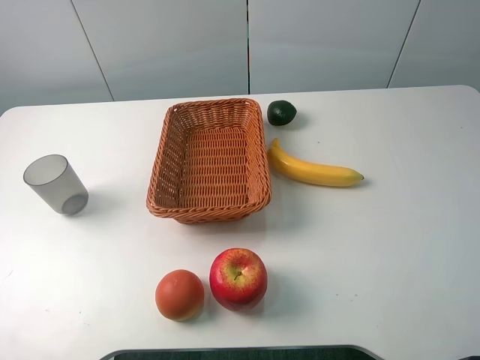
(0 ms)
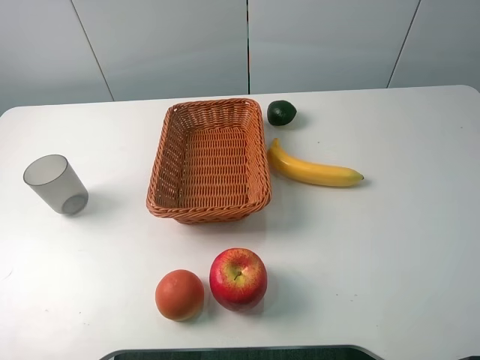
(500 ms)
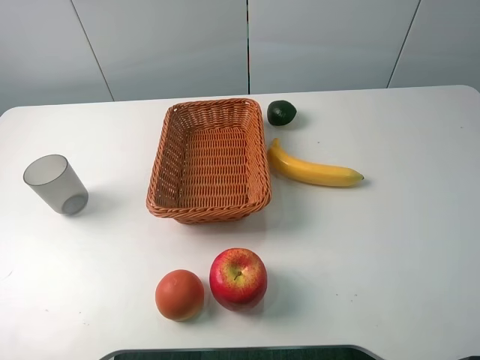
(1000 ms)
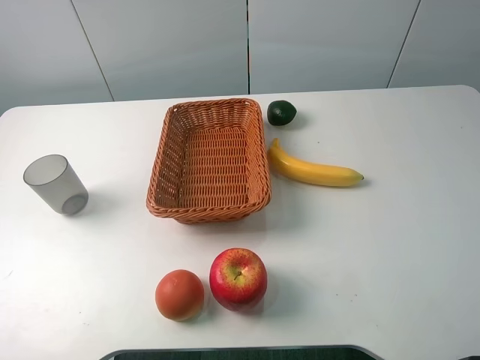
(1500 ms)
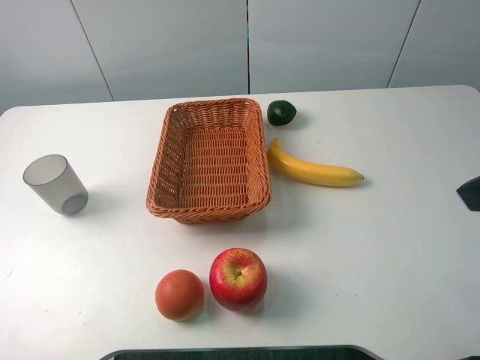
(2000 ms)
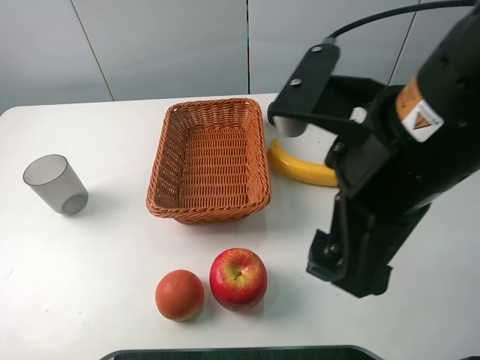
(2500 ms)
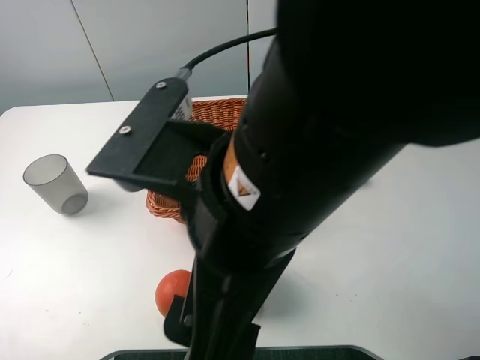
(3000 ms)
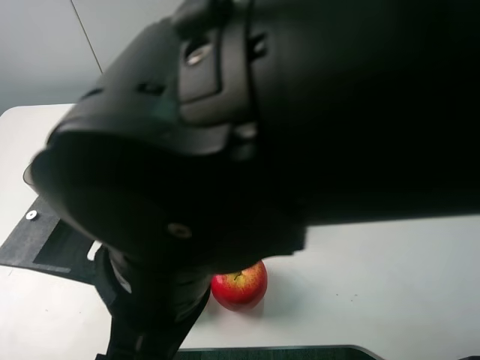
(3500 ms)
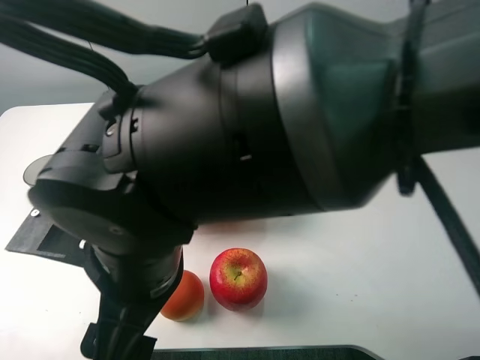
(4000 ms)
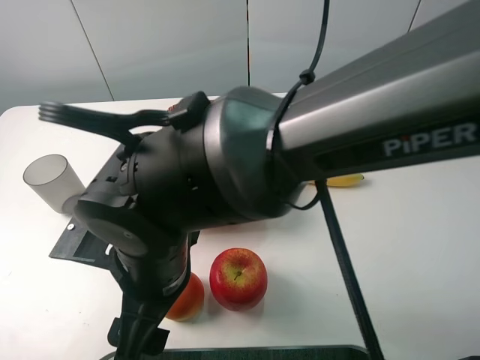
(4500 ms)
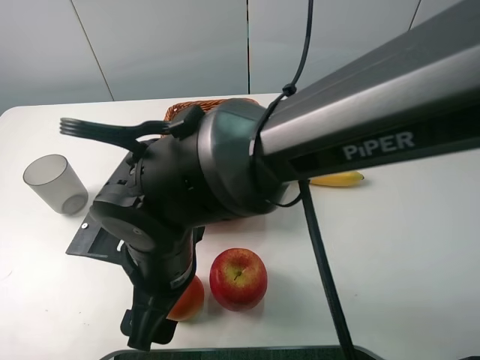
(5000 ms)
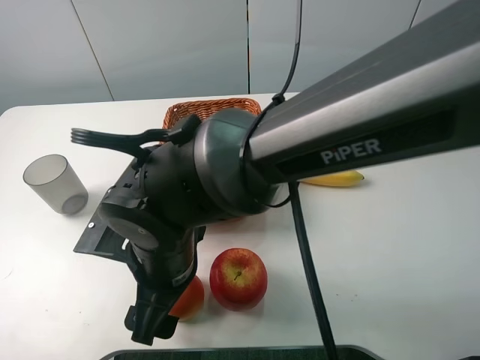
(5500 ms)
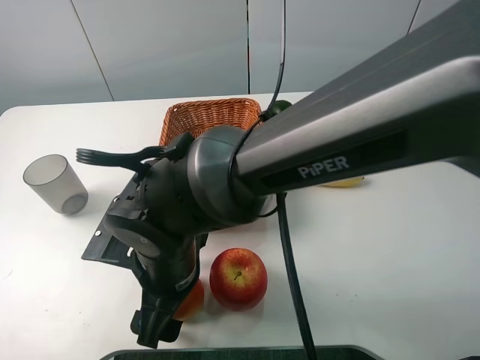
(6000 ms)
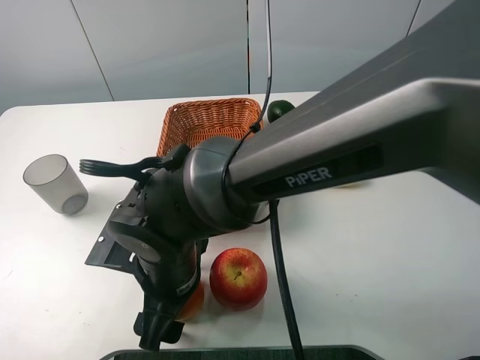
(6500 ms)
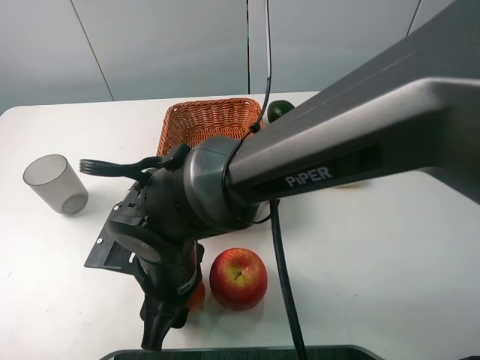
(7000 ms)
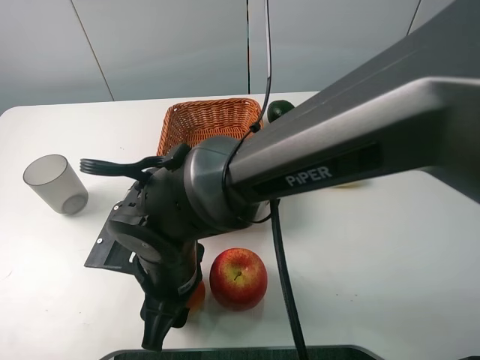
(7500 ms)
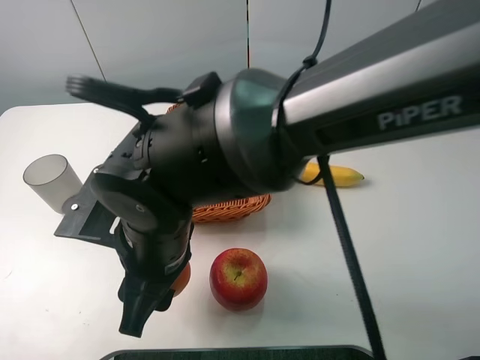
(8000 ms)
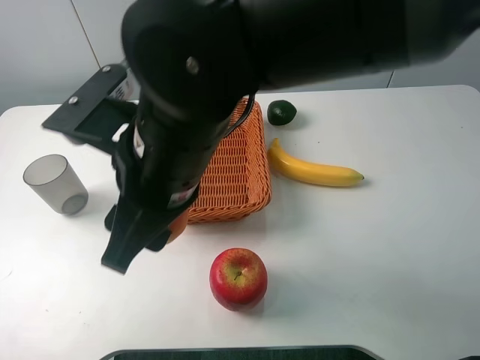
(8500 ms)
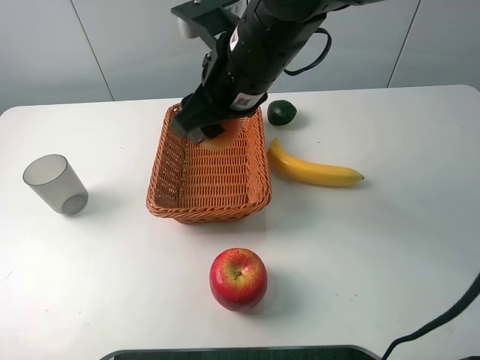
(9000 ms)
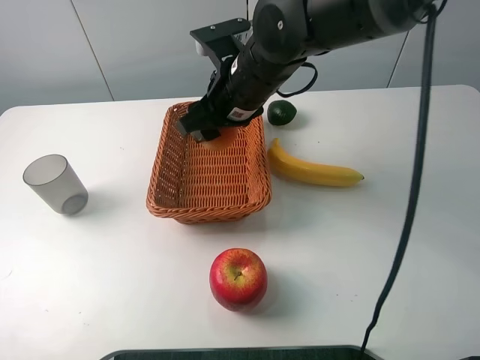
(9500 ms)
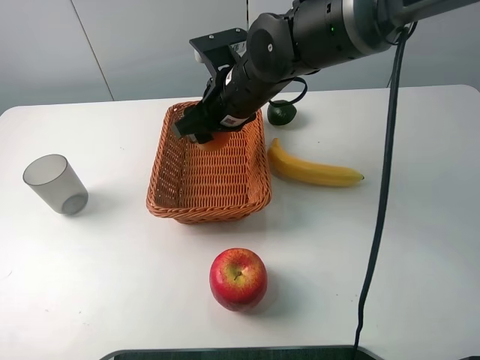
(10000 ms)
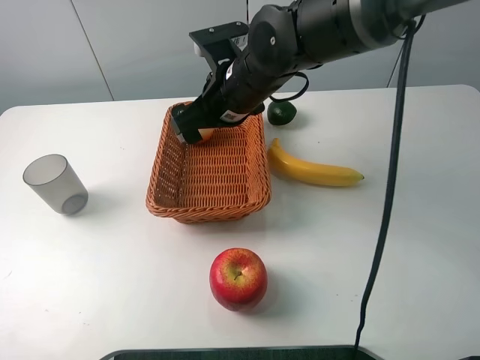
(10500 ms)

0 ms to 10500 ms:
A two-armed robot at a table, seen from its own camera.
2000 ms to 4000 ms: The right gripper is displaced to the left by some 30 cm.
4000 ms to 6500 ms: The right gripper heads downward, covering roughly 10 cm.
6500 ms to 8500 ms: The right gripper goes some 15 cm upward, and closes.
8500 ms to 10500 ms: The right gripper goes about 15 cm forward, and opens.

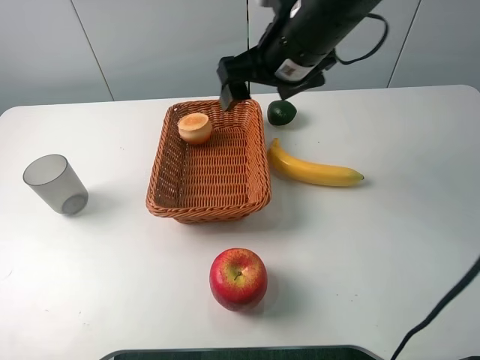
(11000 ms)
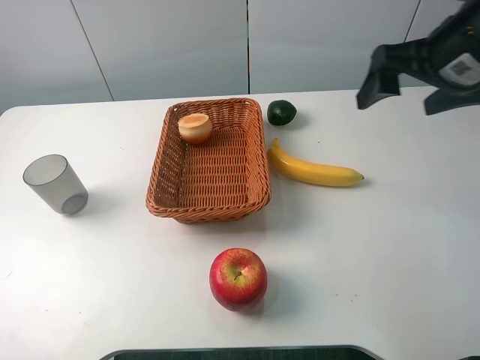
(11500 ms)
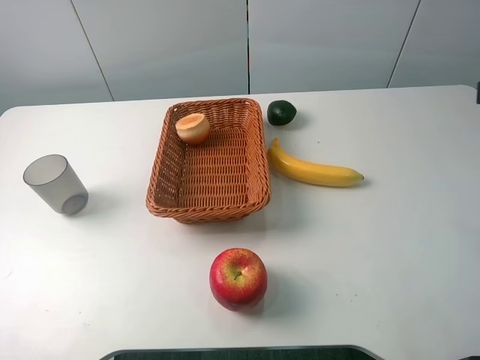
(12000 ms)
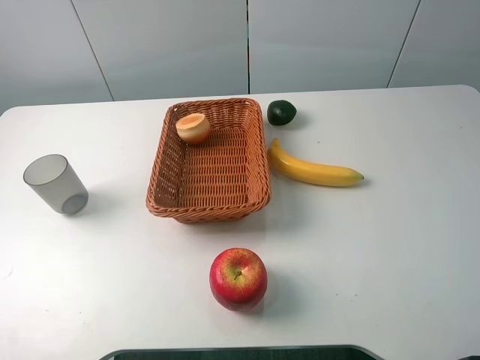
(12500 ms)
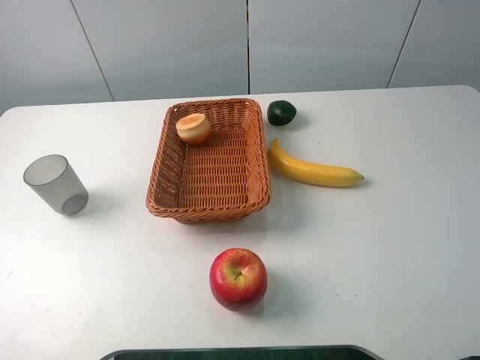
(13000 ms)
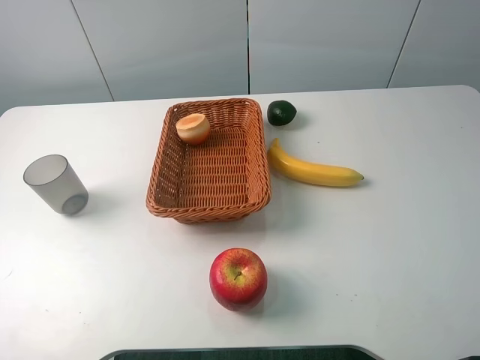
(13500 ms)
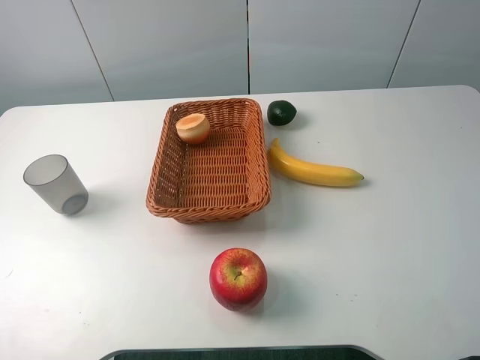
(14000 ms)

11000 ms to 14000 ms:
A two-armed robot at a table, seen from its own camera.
11000 ms to 12500 ms: The right gripper shifts approximately 35 cm backward and to the right.

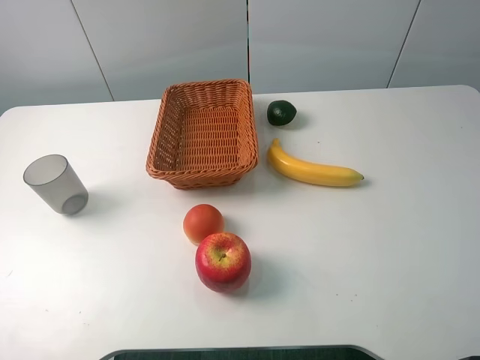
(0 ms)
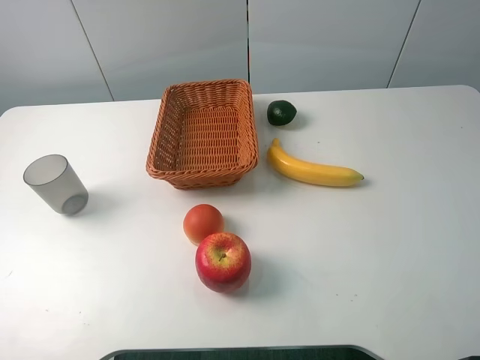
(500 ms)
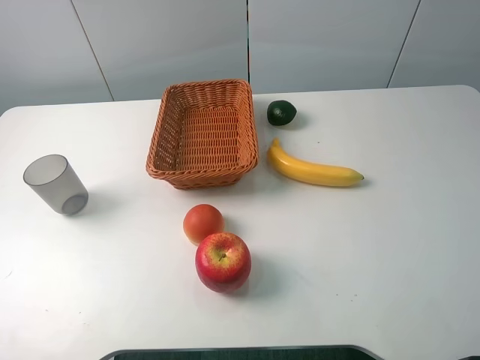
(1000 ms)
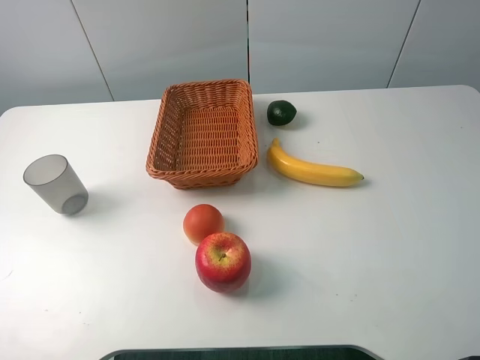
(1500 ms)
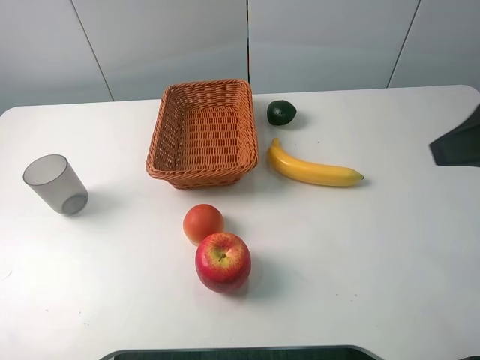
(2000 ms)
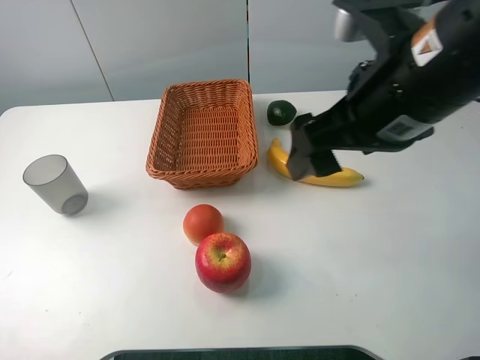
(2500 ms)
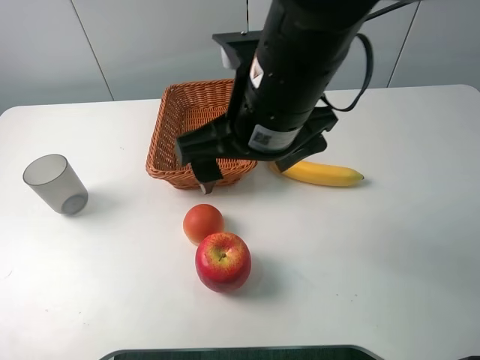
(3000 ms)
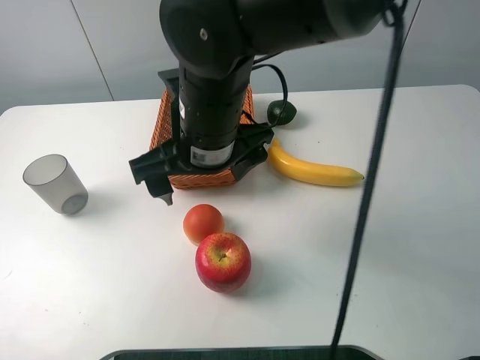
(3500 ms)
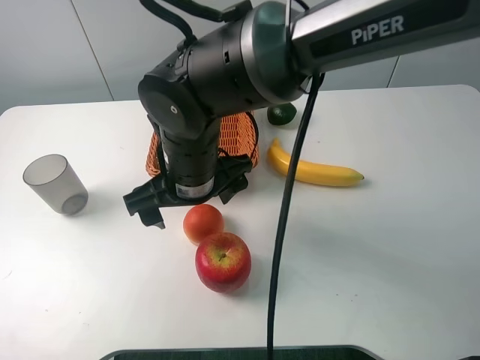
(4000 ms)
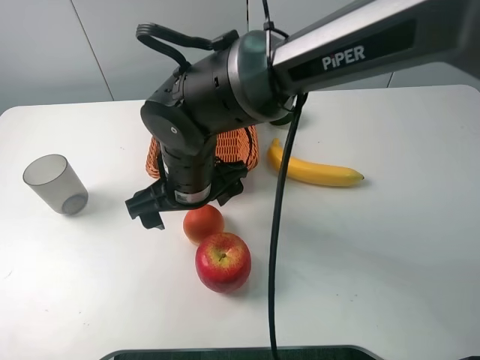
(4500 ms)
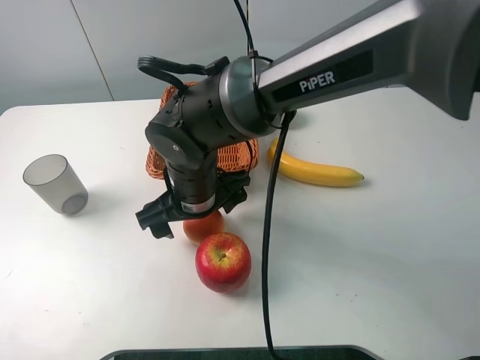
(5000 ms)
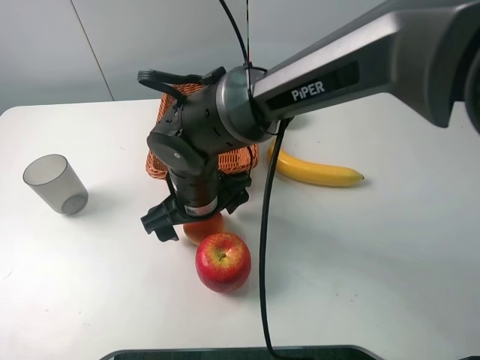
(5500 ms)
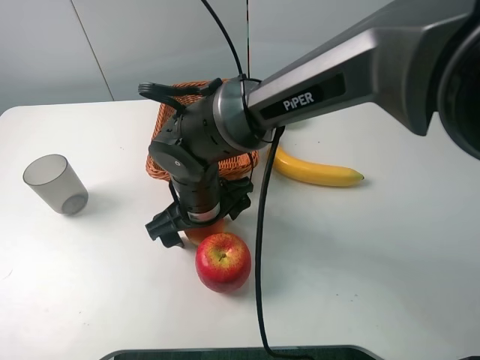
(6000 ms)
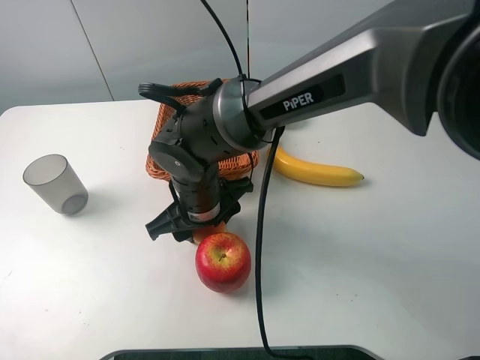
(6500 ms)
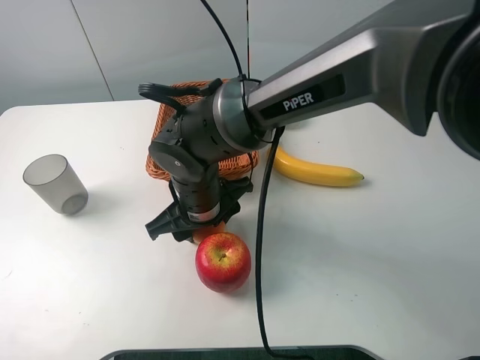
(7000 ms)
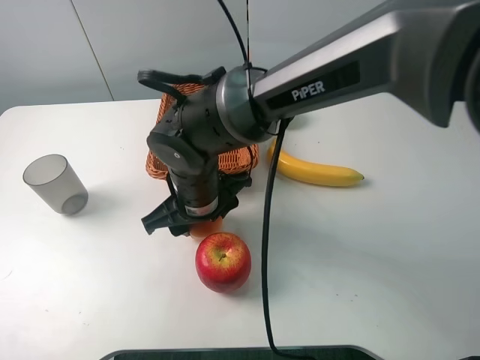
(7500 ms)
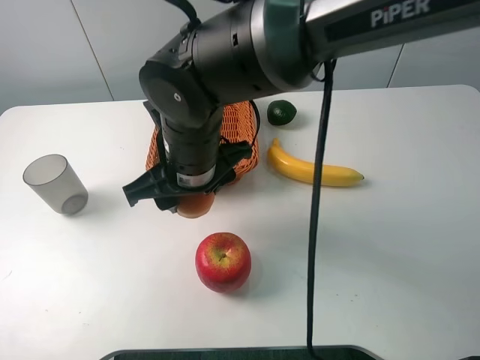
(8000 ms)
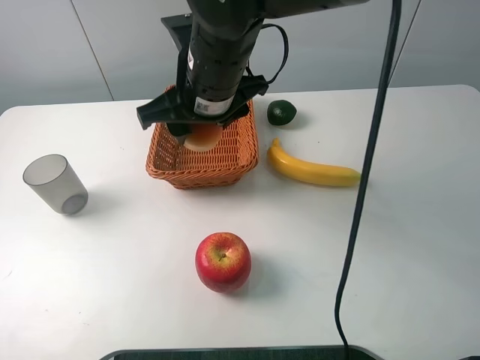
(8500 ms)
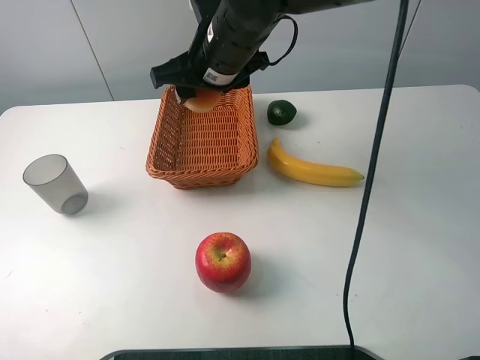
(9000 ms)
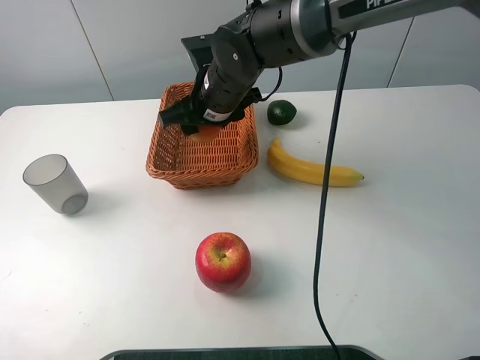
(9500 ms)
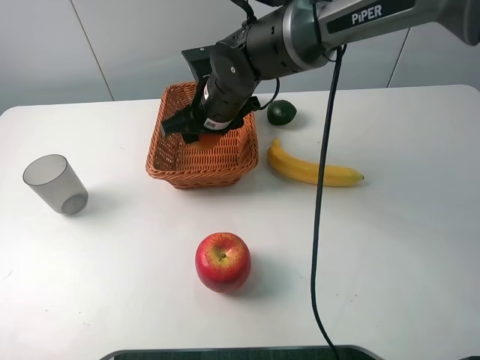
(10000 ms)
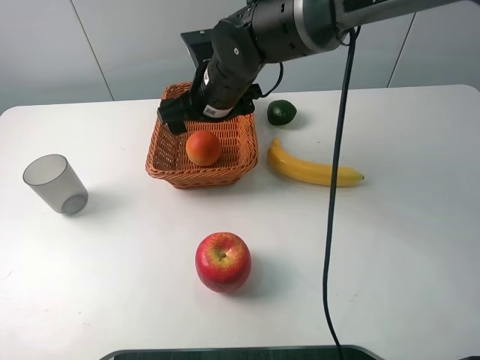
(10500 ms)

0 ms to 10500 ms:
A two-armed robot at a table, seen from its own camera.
0 ms to 2000 ms: The right gripper travels forward by approximately 15 cm.
2000 ms to 4000 ms: The right gripper is displaced to the left and downward by approximately 35 cm.
4000 ms to 6500 ms: The right gripper travels downward by roughly 5 cm, and closes its fingers.
6500 ms to 8500 ms: The right gripper travels upward by approximately 15 cm.
8500 ms to 10500 ms: The right gripper heads forward and downward, covering approximately 10 cm, and opens its fingers.

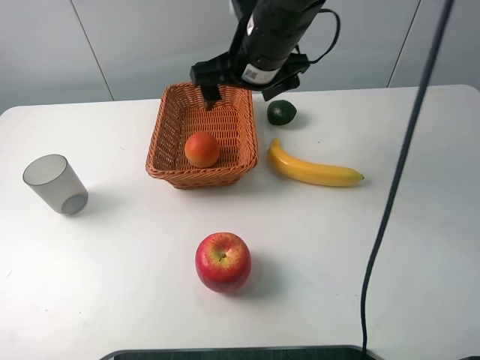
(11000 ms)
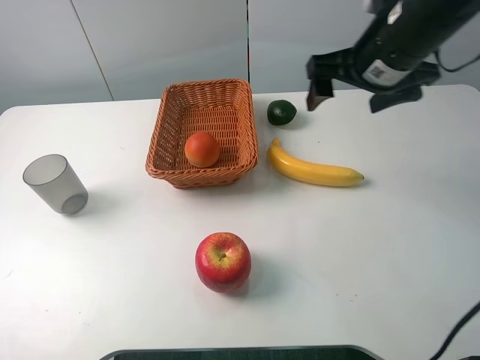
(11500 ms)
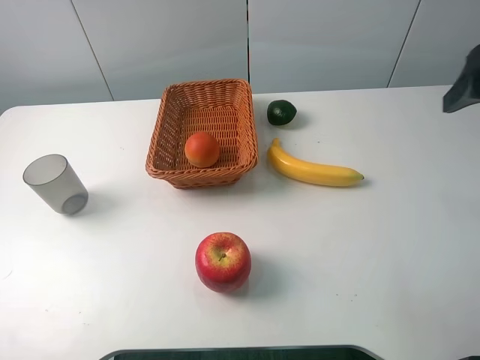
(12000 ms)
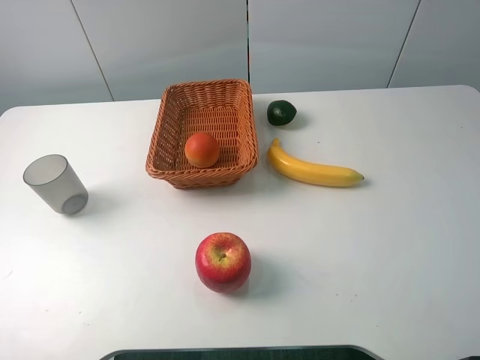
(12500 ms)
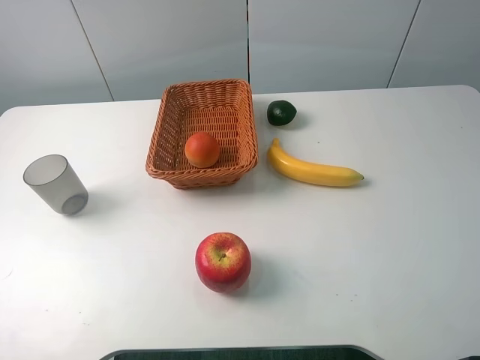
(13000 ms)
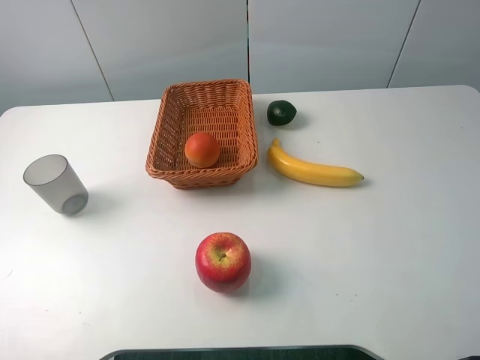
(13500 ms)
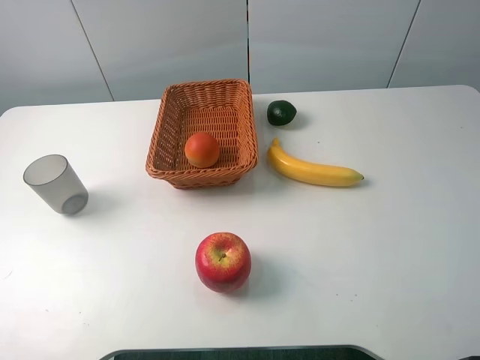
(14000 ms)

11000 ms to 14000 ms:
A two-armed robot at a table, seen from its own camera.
11000 ms to 12500 ms: The right gripper goes roughly 35 cm to the right and backward.
